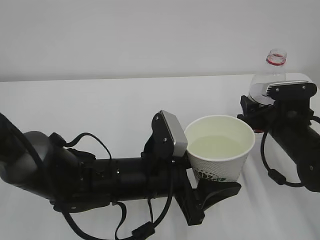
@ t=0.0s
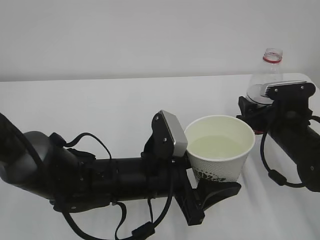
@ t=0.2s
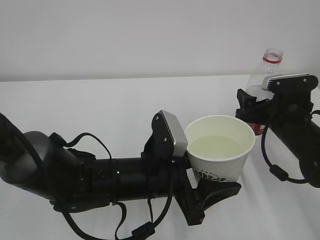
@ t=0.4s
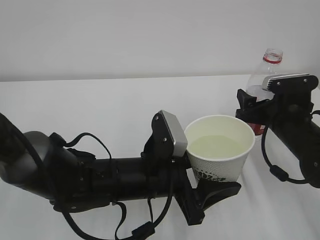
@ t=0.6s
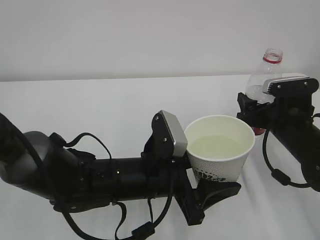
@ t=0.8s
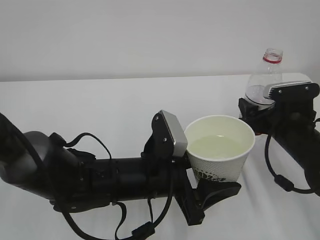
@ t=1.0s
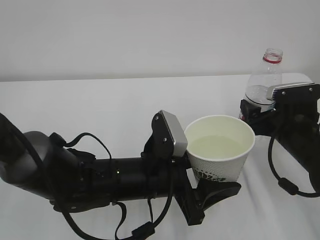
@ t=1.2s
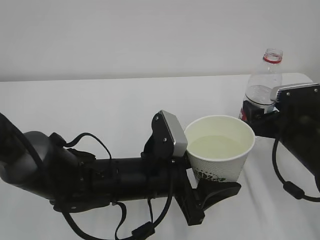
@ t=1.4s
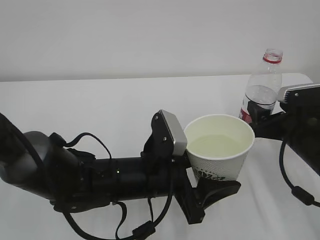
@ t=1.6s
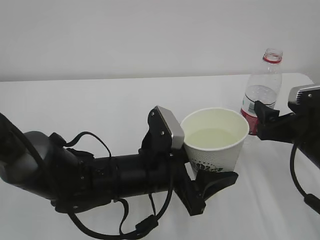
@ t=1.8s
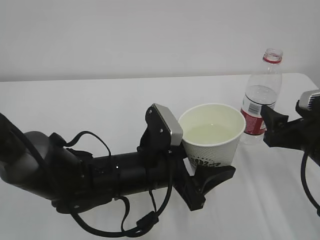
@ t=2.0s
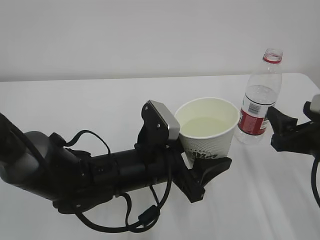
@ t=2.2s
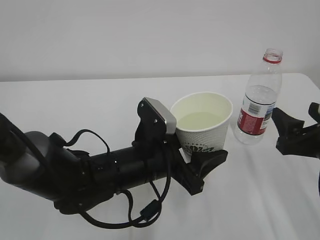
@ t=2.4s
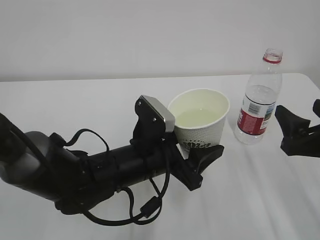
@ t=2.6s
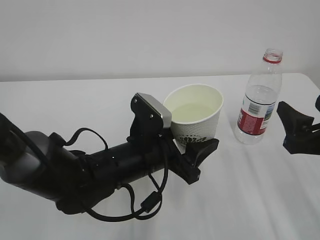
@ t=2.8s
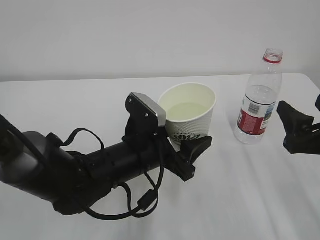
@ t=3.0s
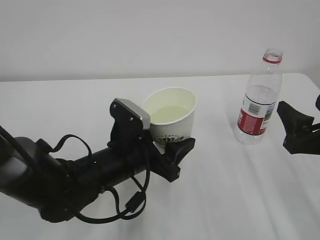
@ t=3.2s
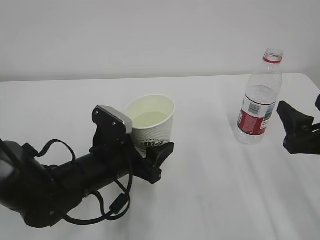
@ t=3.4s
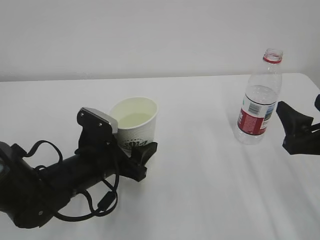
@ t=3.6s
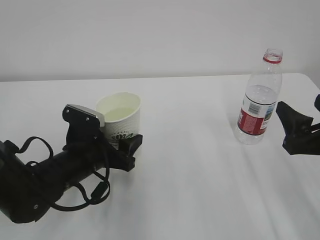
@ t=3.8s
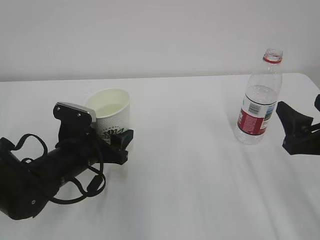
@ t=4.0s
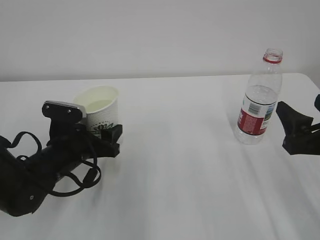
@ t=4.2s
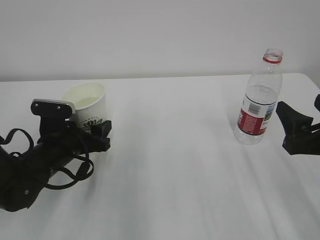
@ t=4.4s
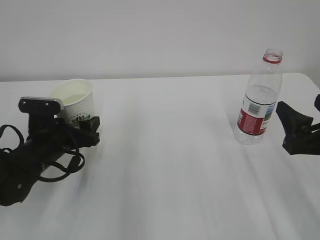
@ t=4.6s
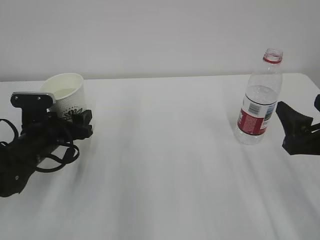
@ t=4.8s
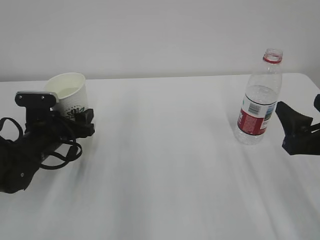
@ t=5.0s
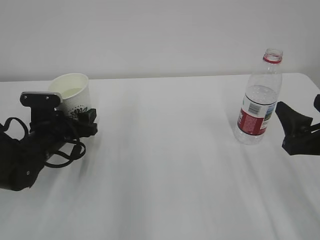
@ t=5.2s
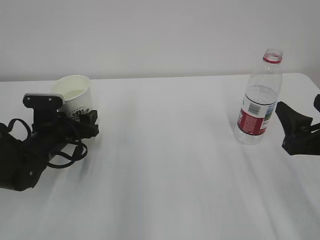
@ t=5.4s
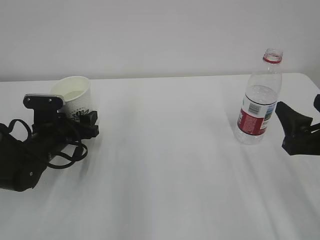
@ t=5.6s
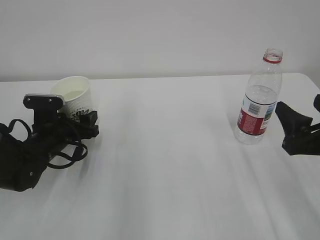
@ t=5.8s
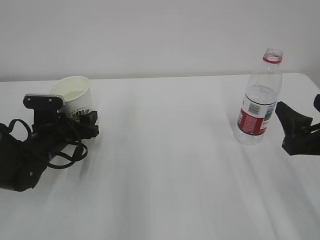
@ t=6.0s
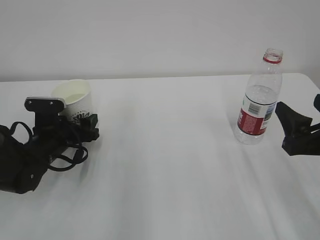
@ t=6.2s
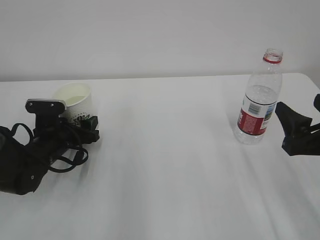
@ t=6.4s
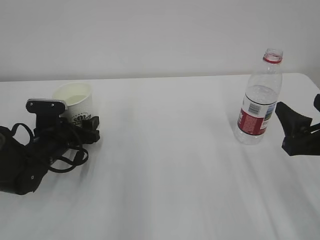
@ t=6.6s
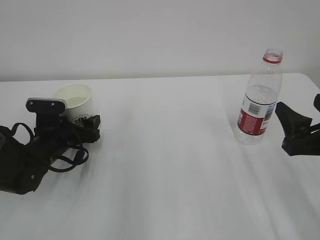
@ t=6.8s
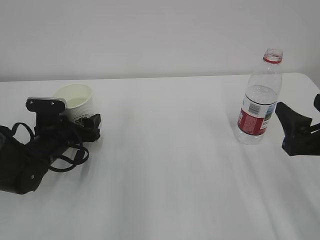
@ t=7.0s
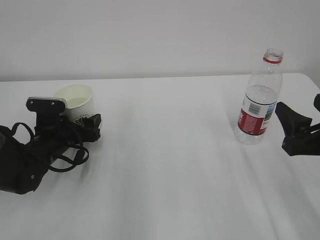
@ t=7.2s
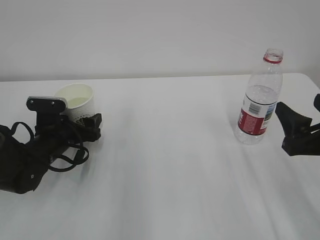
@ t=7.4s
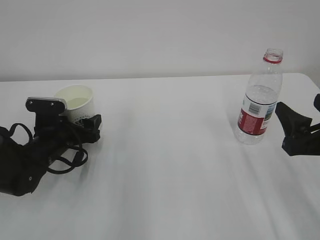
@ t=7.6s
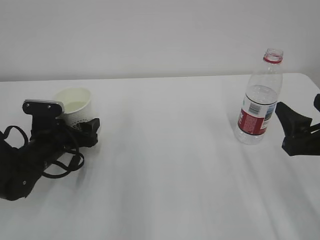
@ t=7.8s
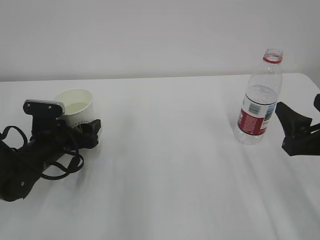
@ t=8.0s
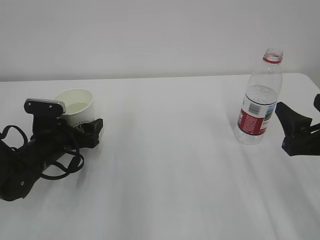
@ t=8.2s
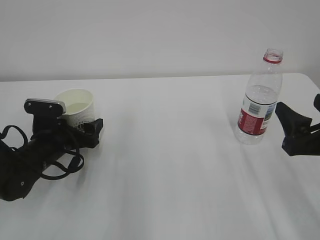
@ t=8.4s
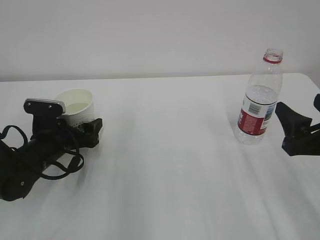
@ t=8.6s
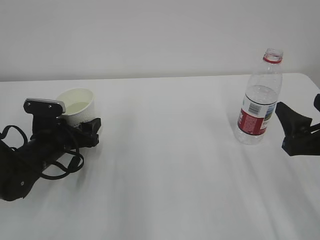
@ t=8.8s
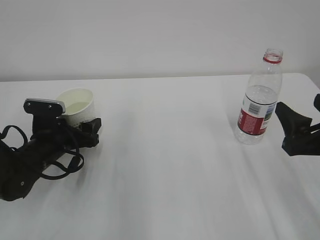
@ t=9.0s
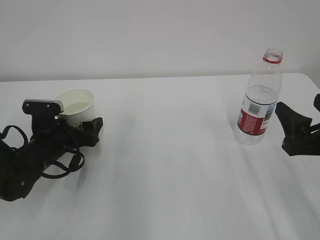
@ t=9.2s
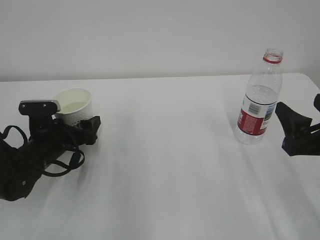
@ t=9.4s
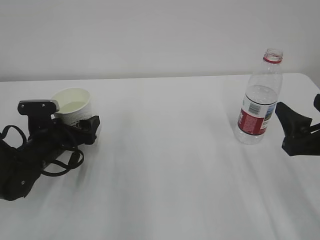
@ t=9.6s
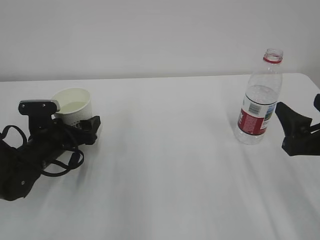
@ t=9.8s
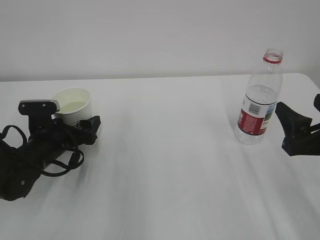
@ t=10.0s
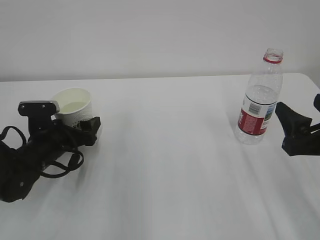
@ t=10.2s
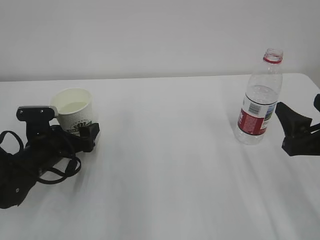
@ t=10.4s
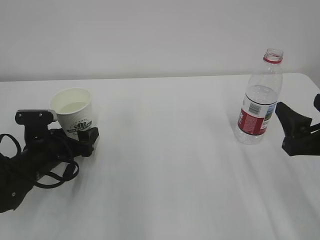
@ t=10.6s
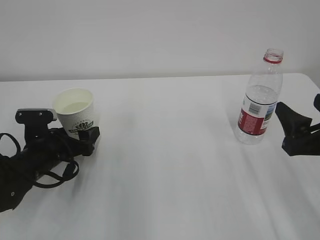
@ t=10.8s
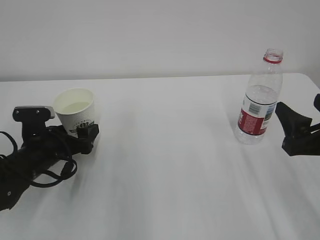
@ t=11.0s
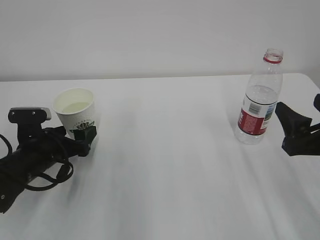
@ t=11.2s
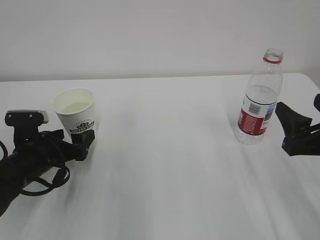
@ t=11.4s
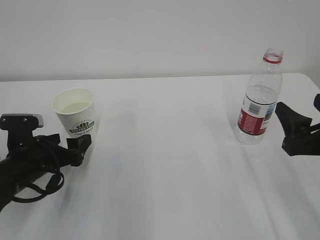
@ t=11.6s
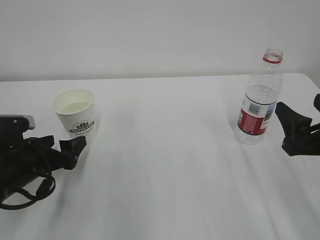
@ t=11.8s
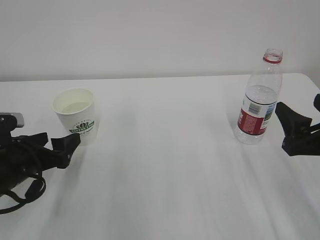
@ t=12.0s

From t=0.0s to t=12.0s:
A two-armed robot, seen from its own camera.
From t=0.0s to t=1.6s: There are only small adjustments of the grippers.
From t=1.6s to t=3.0s: The right gripper moves backward, roughly 10 cm.
From t=3.0s to t=4.4s: The left gripper is displaced to the left by approximately 15 cm.
From t=4.4s to t=6.0s: The left gripper ends up about 5 cm from where it was.
From t=6.0s to t=7.6s: Neither gripper changes place.
From t=7.6s to t=9.0s: The grippers make only small movements.
From t=9.0s to t=10.4s: The left gripper opens its fingers.
From t=10.4s to t=12.0s: The left gripper heads backward, covering about 5 cm.

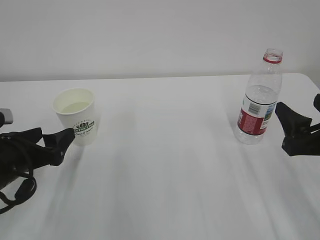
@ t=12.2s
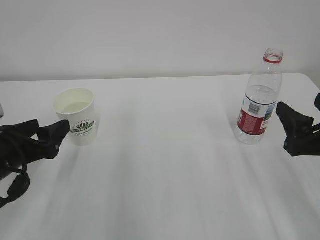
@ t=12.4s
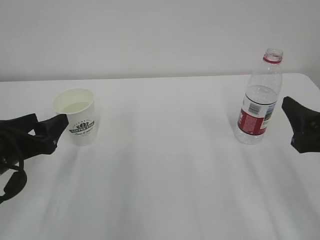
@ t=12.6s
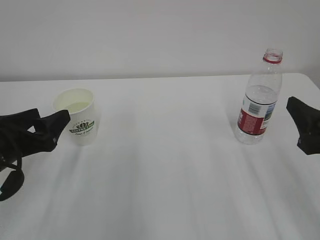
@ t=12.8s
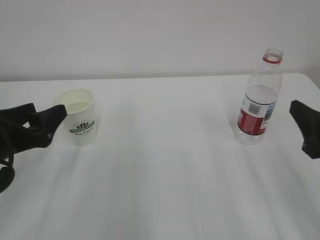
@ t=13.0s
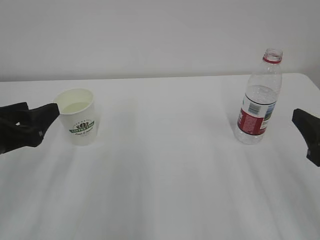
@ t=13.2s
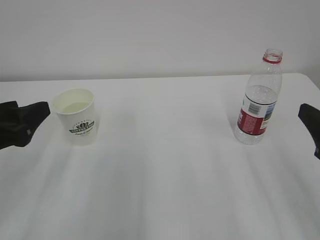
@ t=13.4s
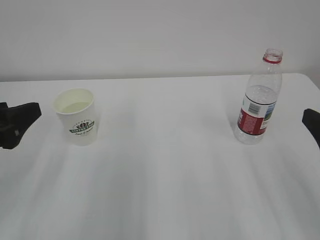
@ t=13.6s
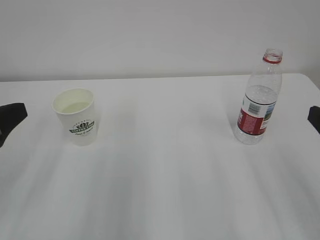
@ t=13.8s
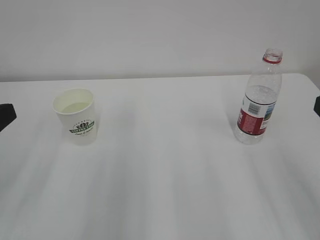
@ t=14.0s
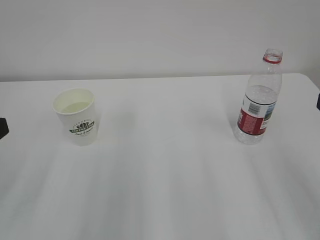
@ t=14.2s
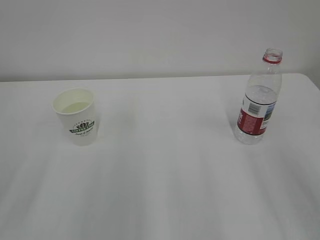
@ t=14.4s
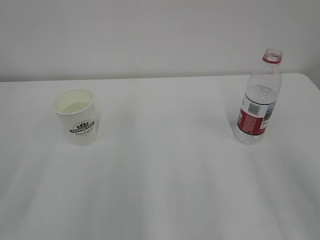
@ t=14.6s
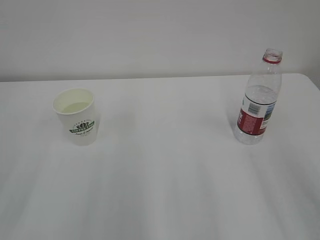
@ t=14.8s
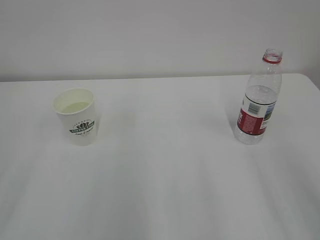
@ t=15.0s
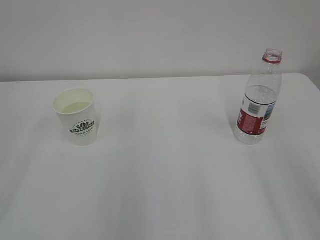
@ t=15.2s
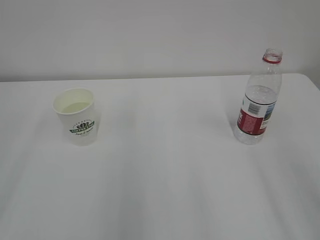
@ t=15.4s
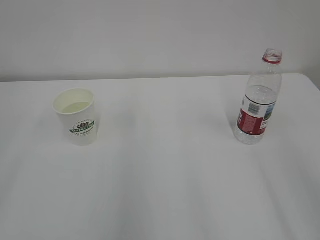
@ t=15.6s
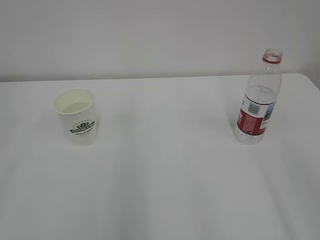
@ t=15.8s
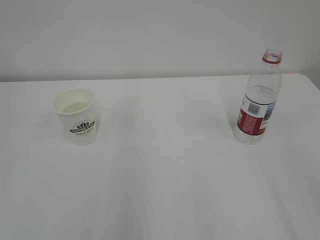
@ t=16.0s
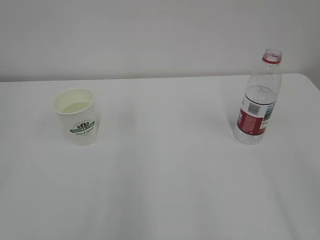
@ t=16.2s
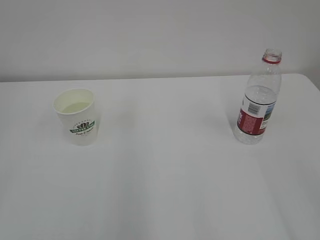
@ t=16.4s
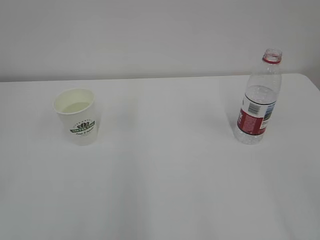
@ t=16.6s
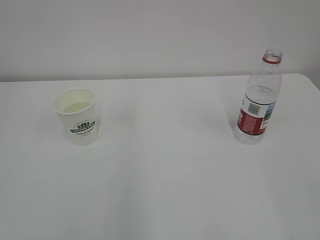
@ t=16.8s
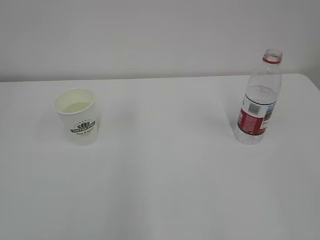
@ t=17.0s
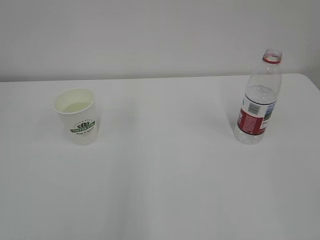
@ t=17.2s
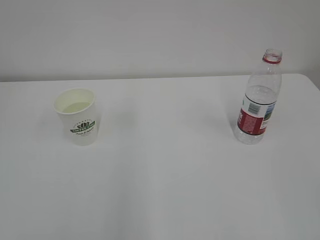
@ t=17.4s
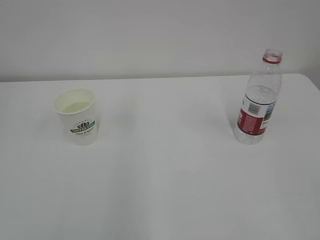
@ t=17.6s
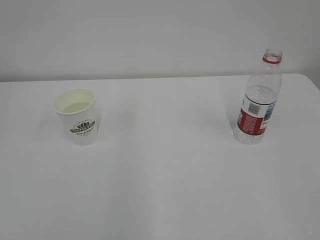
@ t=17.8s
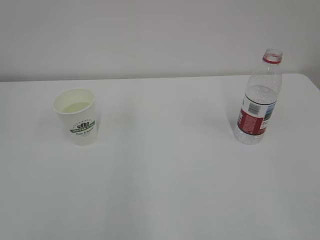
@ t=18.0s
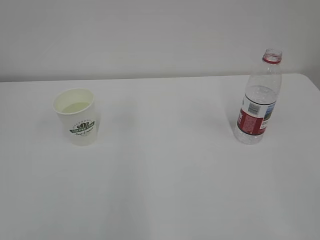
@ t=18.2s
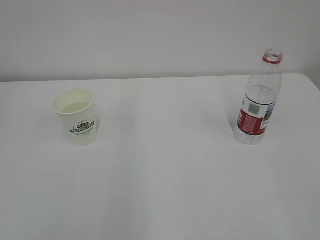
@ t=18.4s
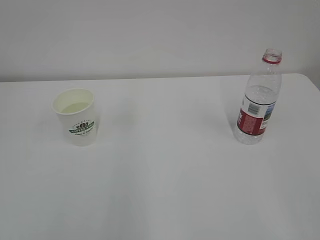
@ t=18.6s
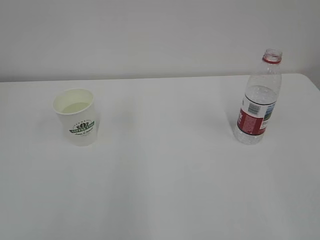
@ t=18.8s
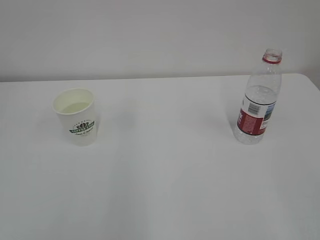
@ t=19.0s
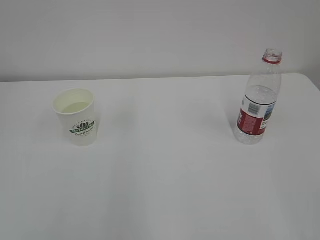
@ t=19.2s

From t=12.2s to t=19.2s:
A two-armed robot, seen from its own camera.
From t=12.2s to t=13.6s: The right gripper goes approximately 5 cm backward. The left gripper goes some 10 cm upward, and closes its fingers.
From t=13.6s to t=15.0s: The left gripper moves backward and upward, about 10 cm.
